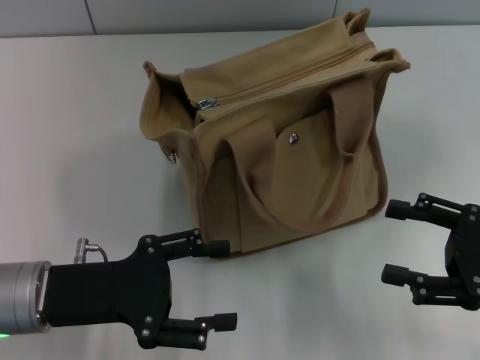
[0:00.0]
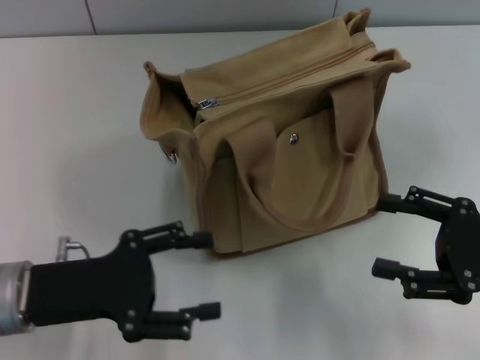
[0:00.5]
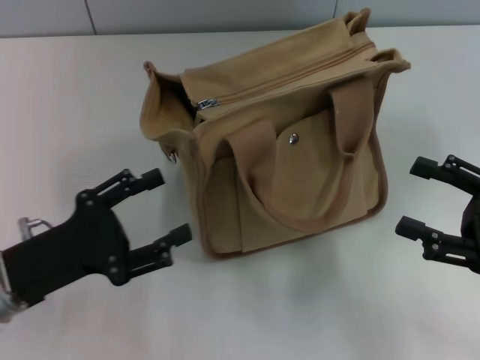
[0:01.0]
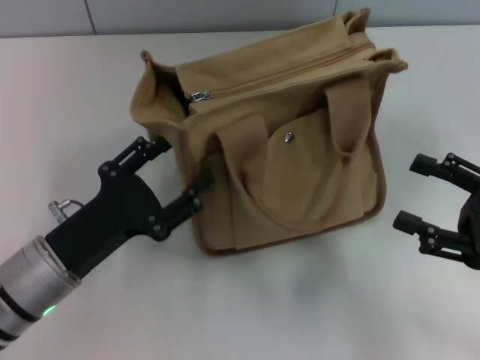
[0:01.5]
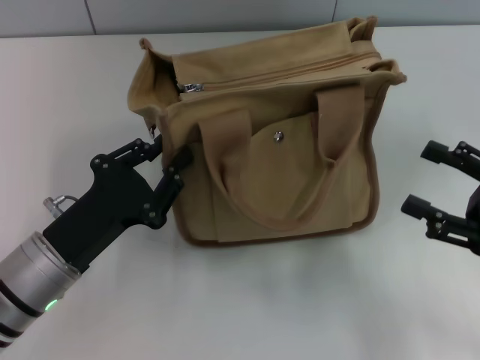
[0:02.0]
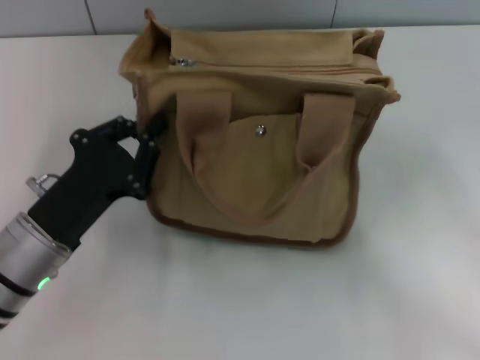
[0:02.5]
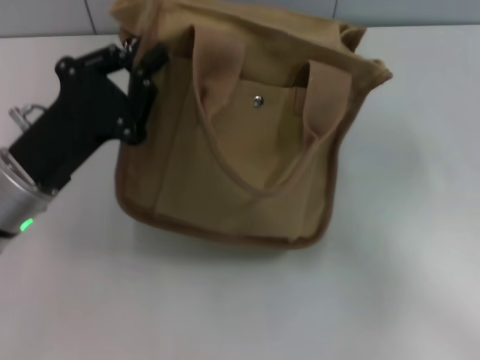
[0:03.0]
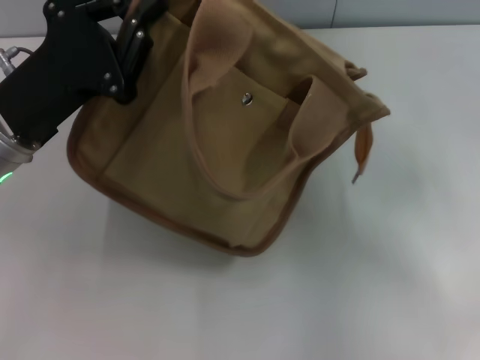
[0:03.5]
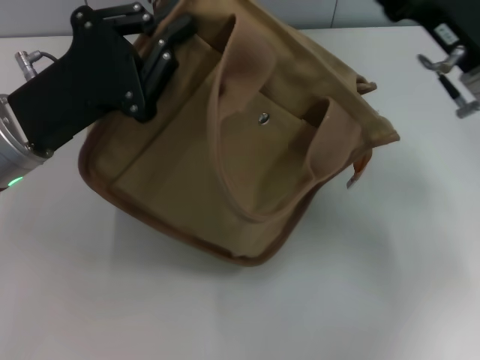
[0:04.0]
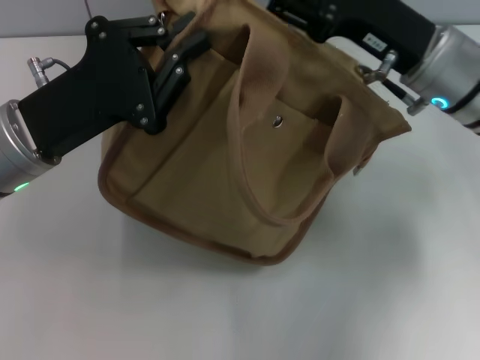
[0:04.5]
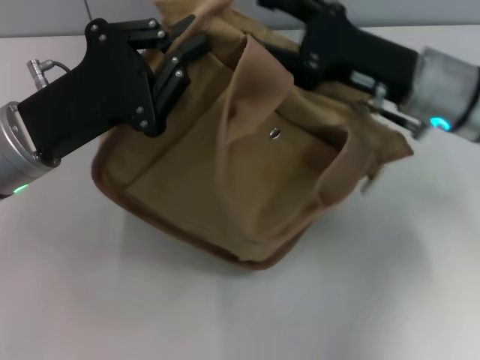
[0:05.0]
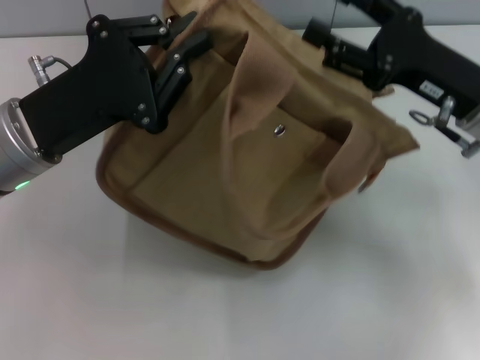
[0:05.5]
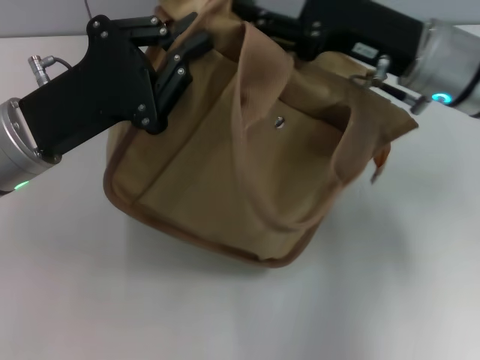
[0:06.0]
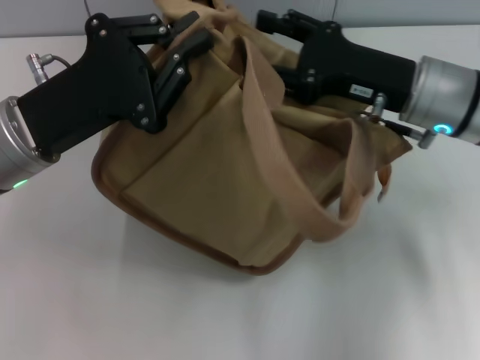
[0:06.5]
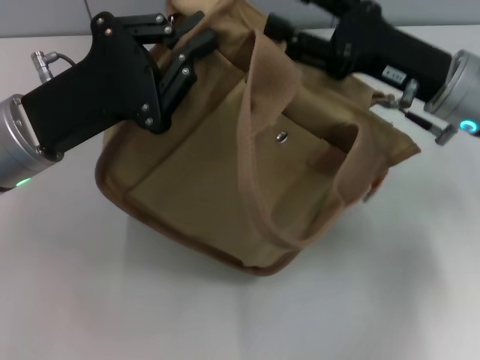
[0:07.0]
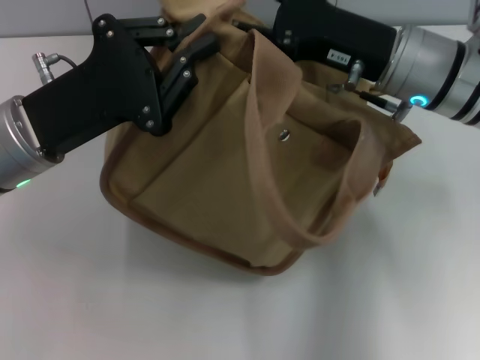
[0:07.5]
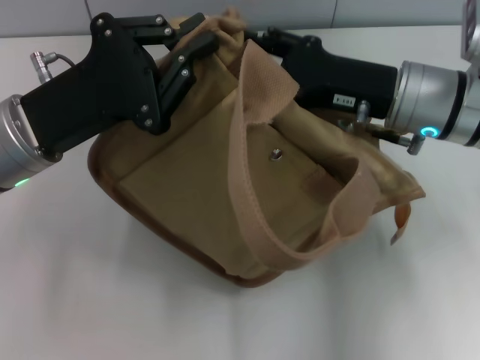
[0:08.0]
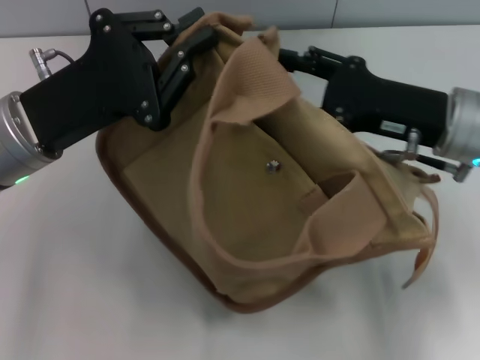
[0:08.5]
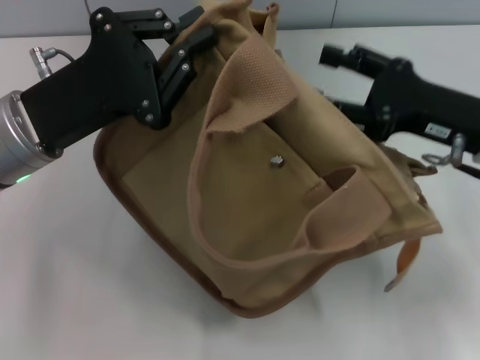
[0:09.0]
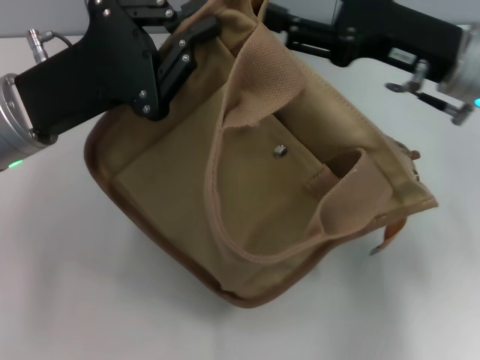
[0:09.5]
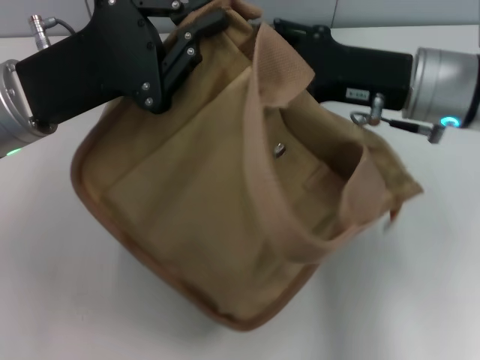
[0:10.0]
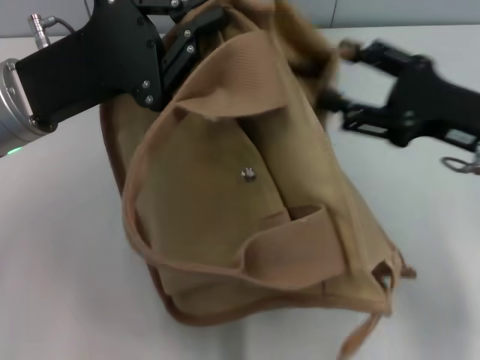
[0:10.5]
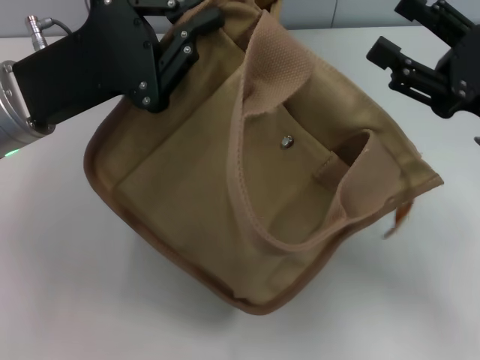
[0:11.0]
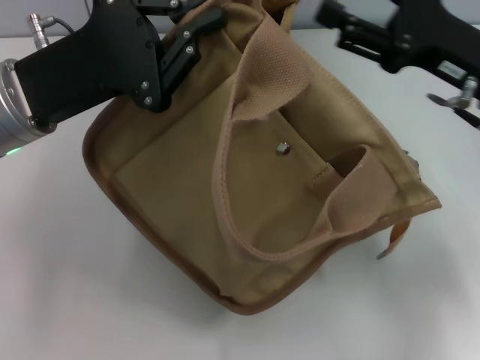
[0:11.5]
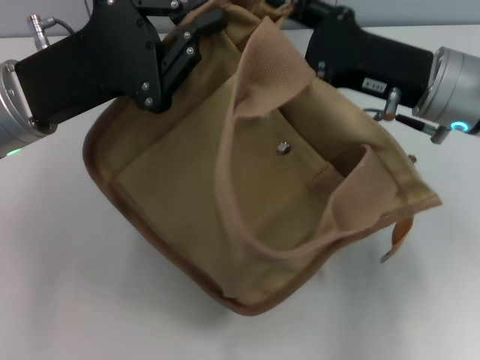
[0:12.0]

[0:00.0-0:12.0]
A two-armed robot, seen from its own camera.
0:00.0 to 0:02.0: The left gripper closes up.
0:02.0 to 0:04.0: The right gripper heads forward, to the left and upward, covering about 15 cm. Meanwhile the left gripper shifts roughly 10 cm upward and forward, and closes its fingers.
0:04.0 to 0:06.0: The right gripper moves left and right over about 5 cm, changing direction 2 times.
0:10.0 to 0:12.0: The right gripper moves some 10 cm to the right and comes back.

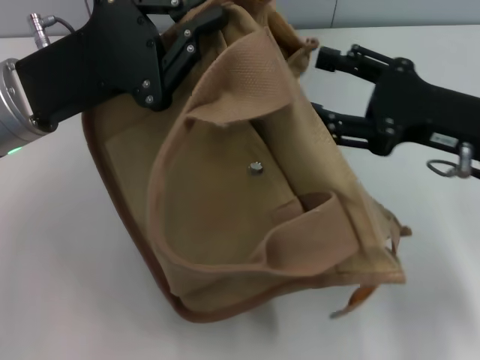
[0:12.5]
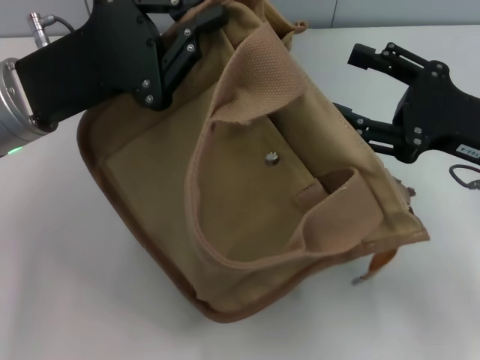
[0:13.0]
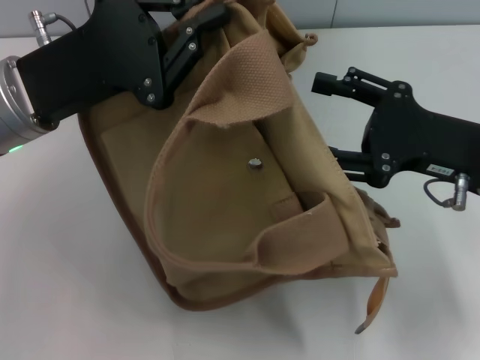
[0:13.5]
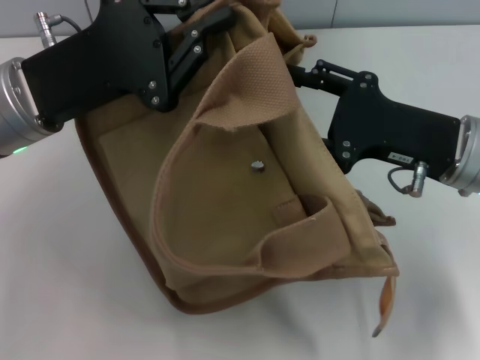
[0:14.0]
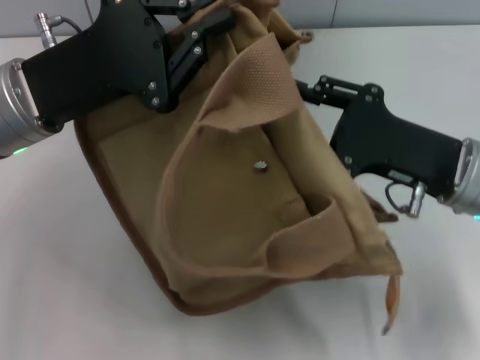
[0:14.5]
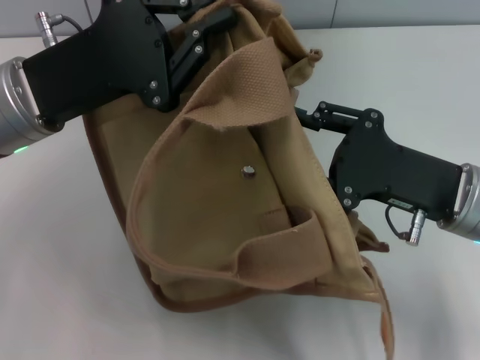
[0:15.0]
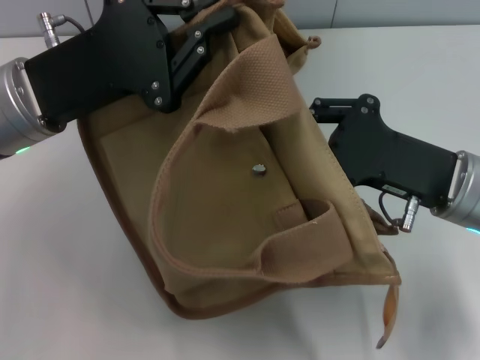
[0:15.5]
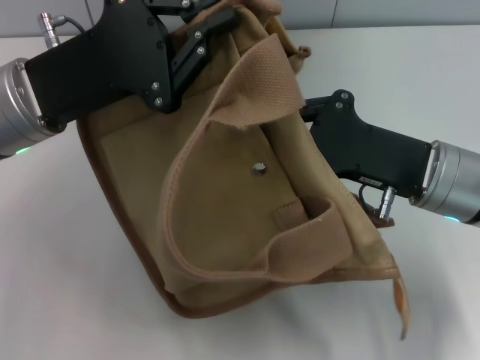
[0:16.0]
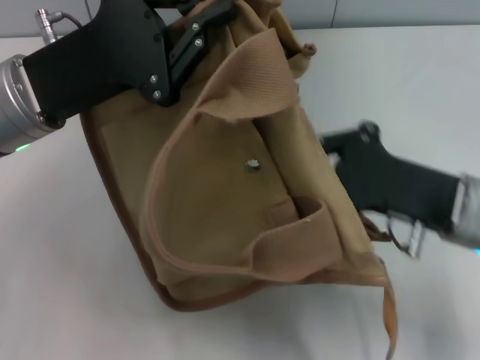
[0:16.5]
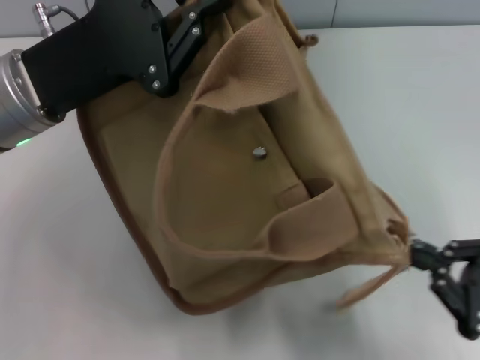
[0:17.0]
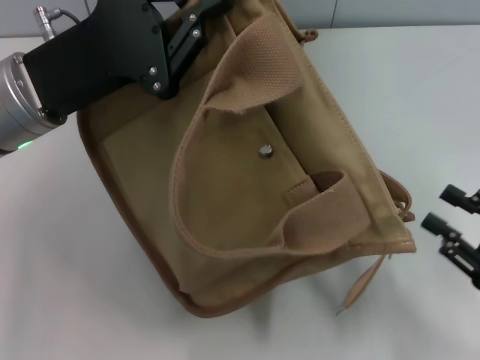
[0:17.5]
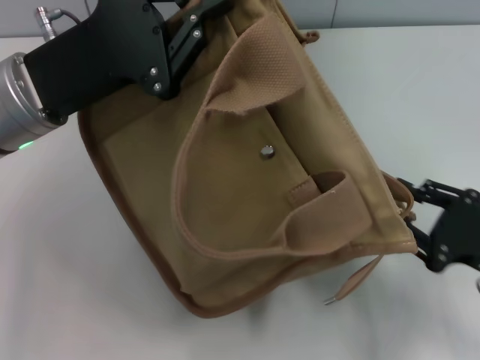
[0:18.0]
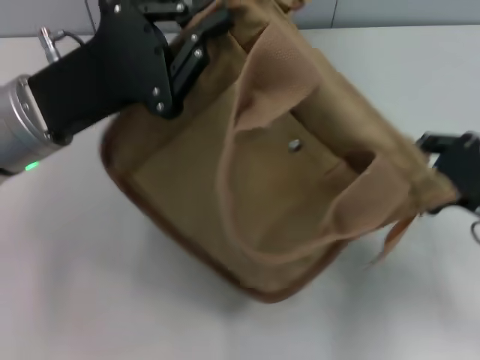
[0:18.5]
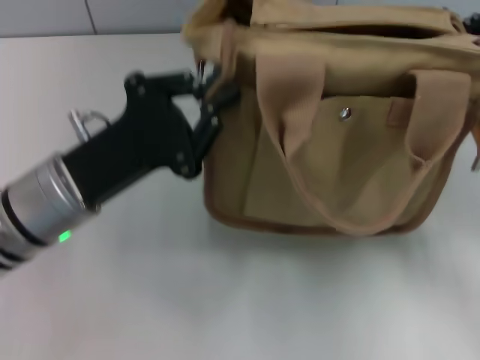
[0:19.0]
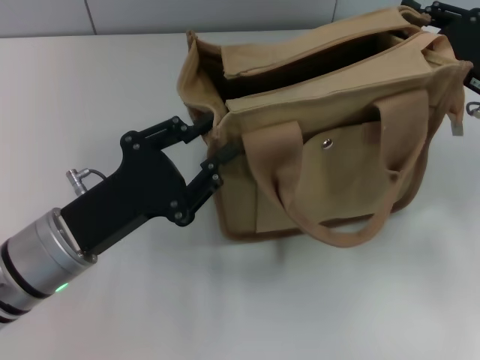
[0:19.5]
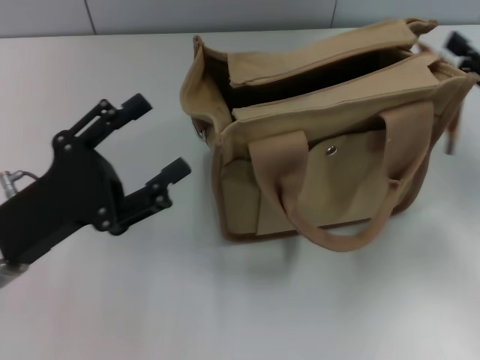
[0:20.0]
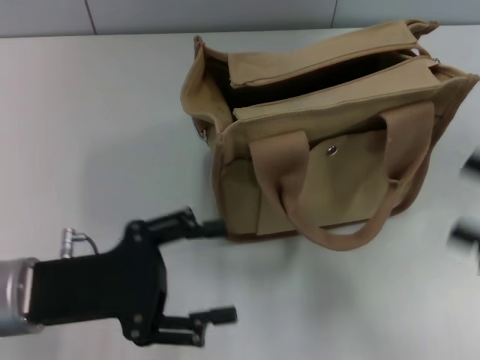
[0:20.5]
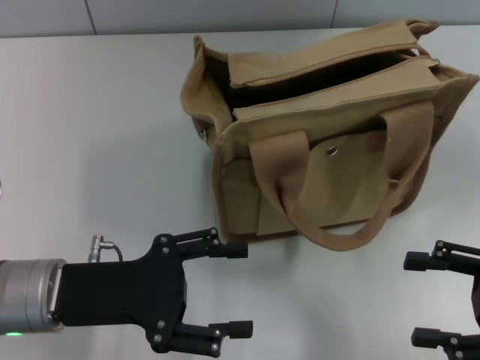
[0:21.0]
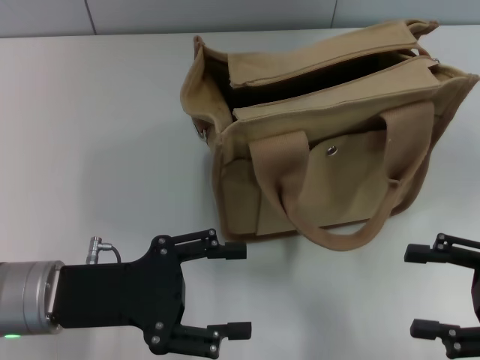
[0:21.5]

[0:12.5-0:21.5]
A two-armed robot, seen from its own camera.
Step, 0:12.5 to 0:17.5: Pull open the zipper with your right hand.
Step, 0:18.0 to 0:19.5: Grab the bag with your left hand.
0:14.5 to 0:17.0: The right gripper travels backward, to the right and downward by some 15 cm, and closes up.
0:17.0 to 0:19.5: The left gripper shifts roughly 15 cm downward and backward; the right gripper goes roughly 20 cm forward, and opens and closes again.
0:19.5 to 0:21.5: The right gripper shifts about 15 cm backward, and opens up, while the left gripper opens up.

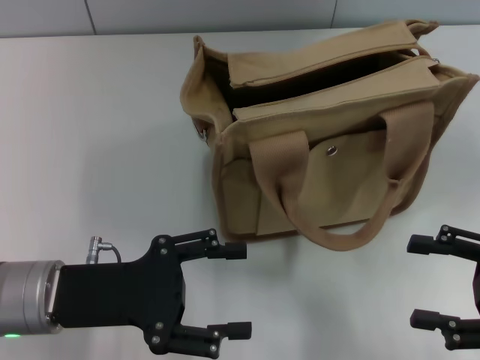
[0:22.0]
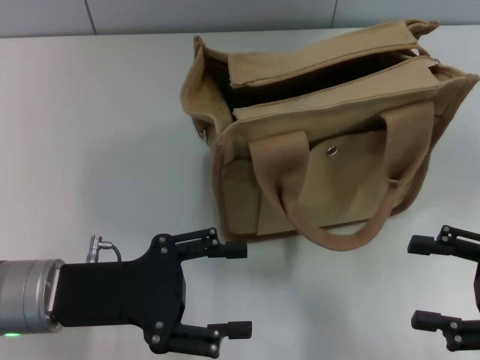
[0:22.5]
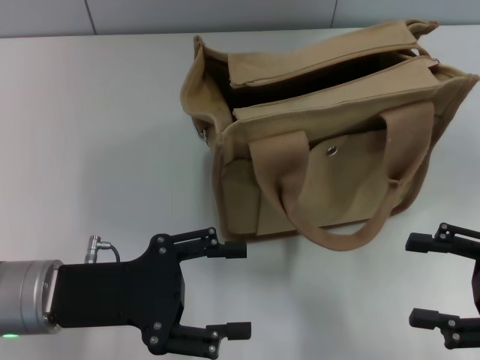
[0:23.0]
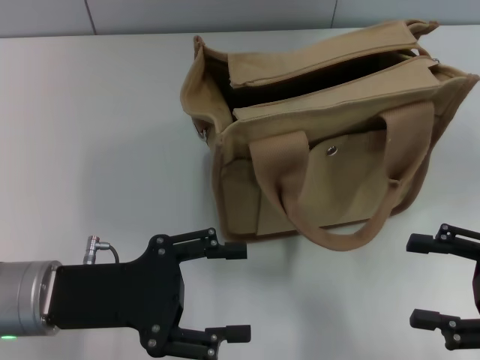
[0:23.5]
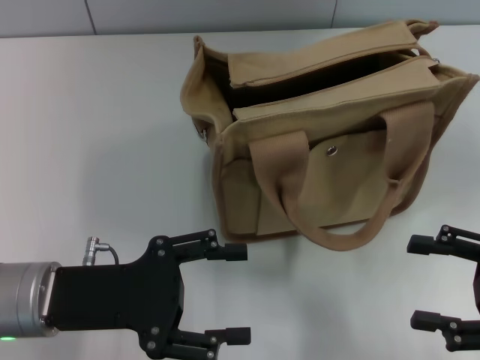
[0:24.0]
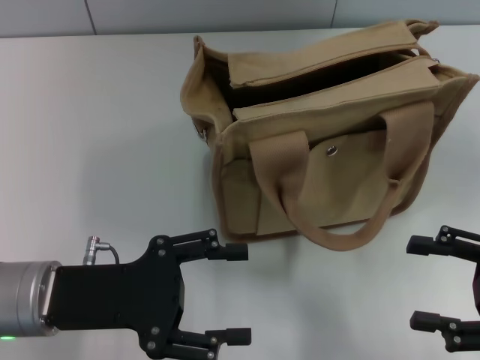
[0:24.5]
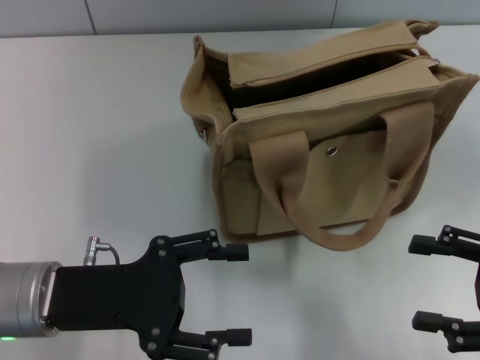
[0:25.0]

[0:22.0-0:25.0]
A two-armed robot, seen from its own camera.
0:22.0 to 0:25.0: Neither gripper changes place.

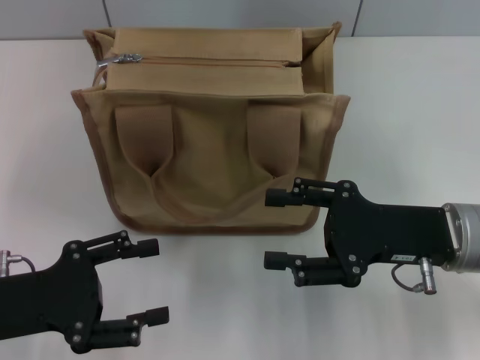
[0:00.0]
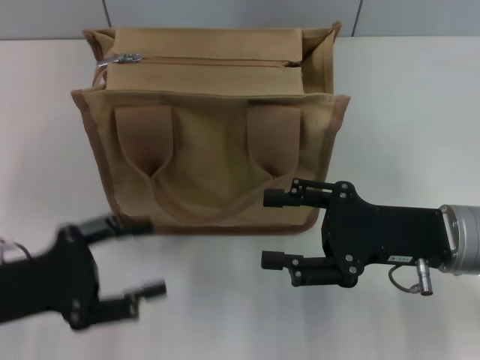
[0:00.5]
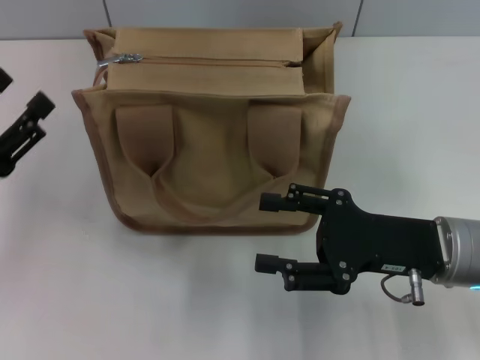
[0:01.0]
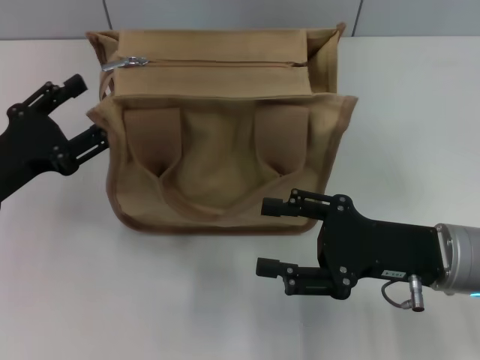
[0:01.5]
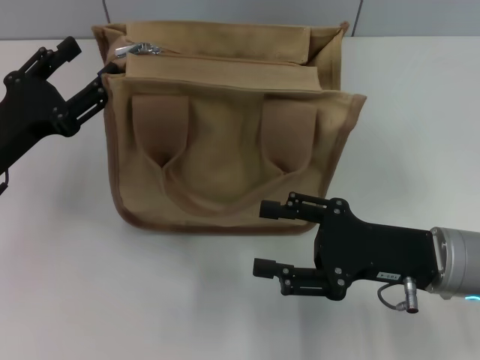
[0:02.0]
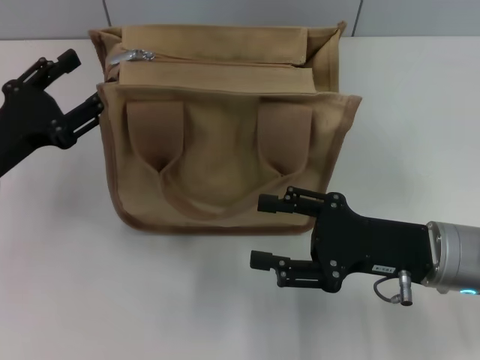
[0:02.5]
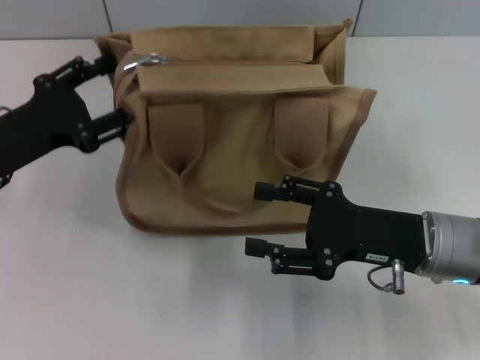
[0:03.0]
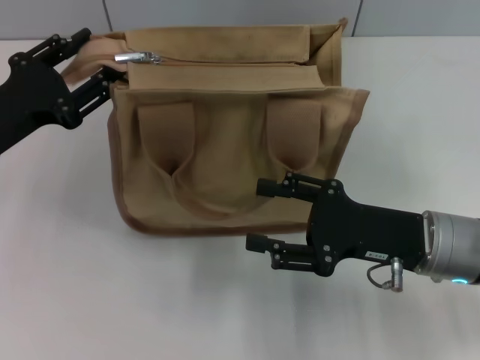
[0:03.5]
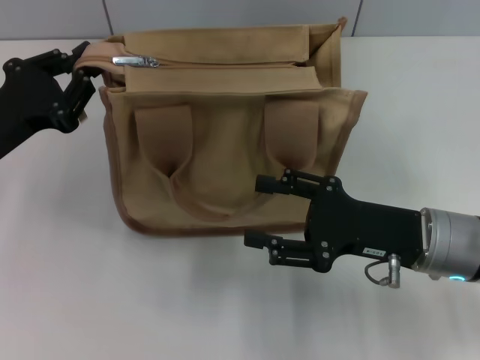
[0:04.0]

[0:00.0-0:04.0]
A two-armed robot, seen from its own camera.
0:00.0 to 0:02.0: The left gripper goes some 10 cm forward.
0:02.0 to 0:04.0: The left gripper closes up.
